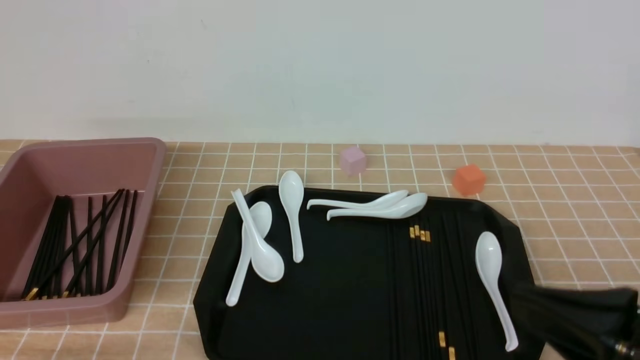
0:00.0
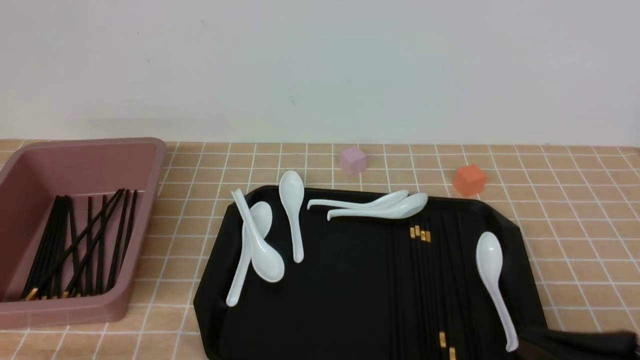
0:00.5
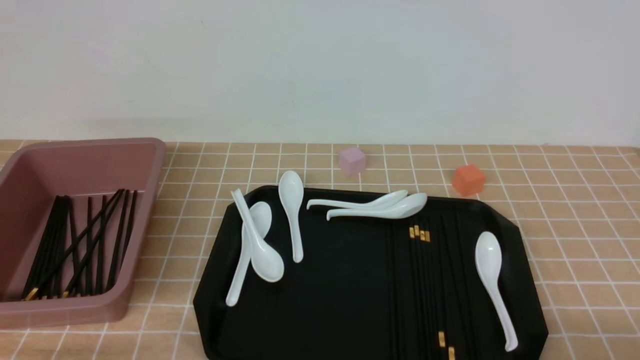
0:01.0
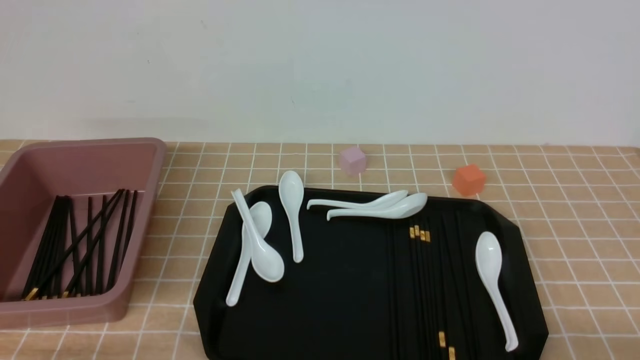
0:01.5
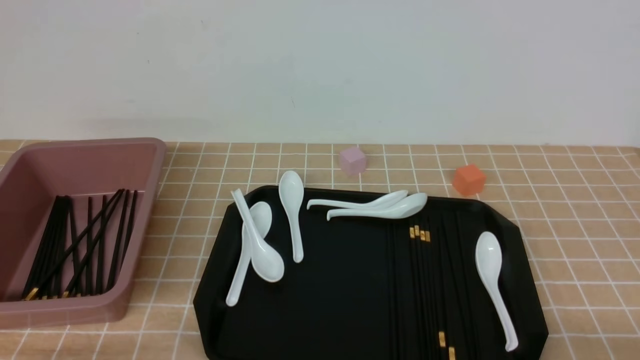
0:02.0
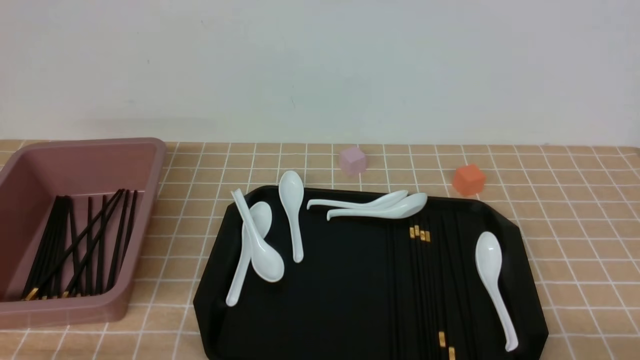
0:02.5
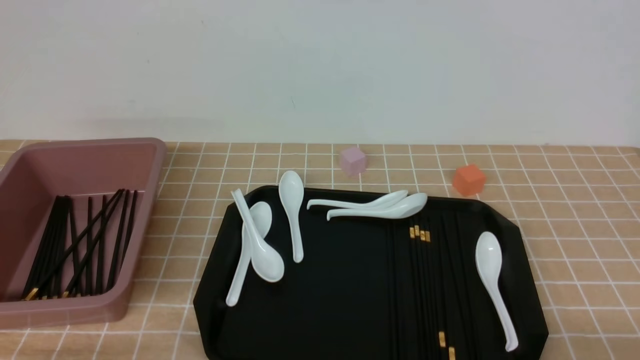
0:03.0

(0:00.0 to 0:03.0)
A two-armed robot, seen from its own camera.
0:00.0 - 0:01.5: The right gripper is displaced downward and to the right by approximately 15 cm.
0:01.5 - 0:03.0: Neither gripper changes place.
